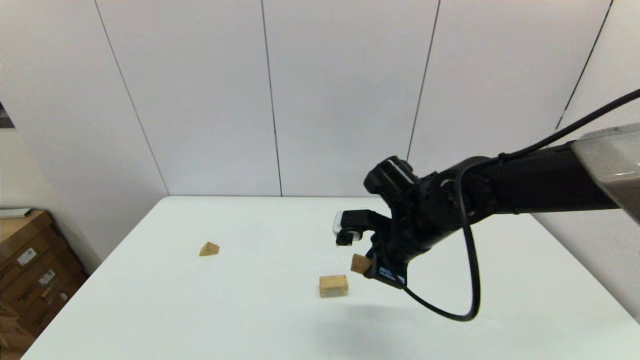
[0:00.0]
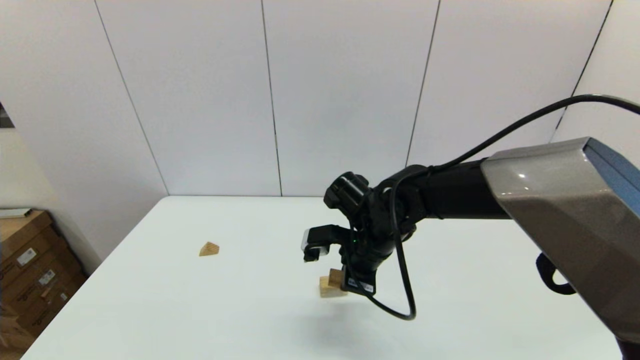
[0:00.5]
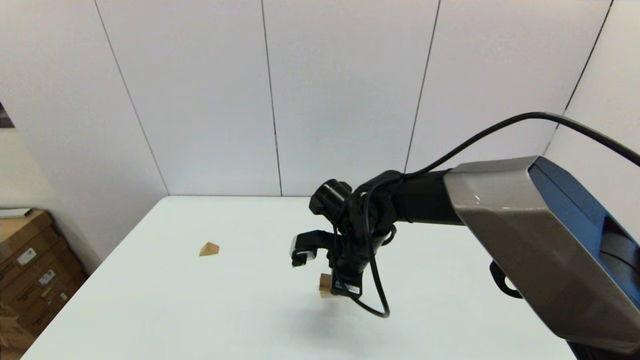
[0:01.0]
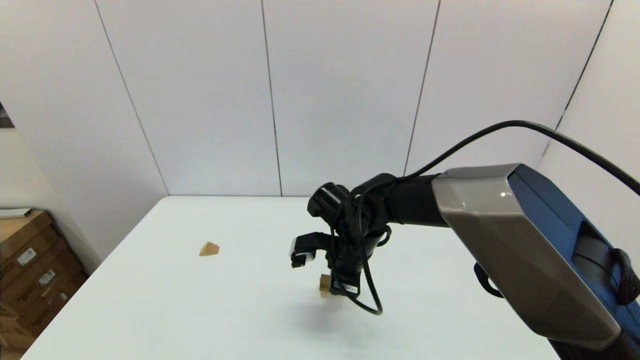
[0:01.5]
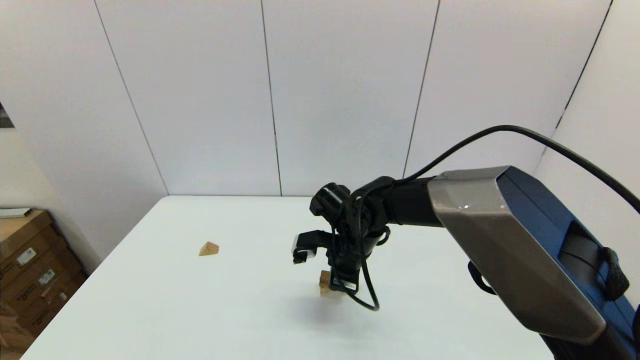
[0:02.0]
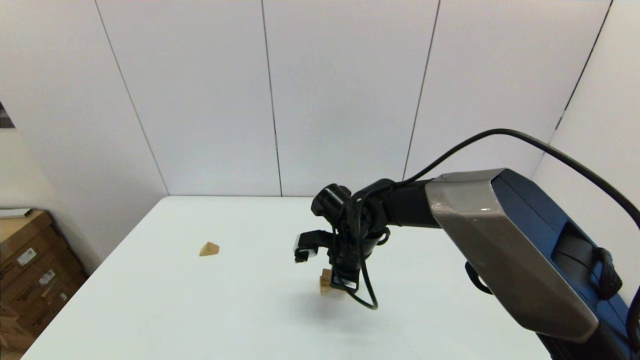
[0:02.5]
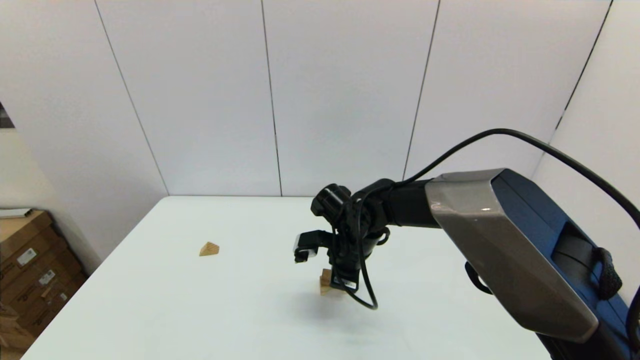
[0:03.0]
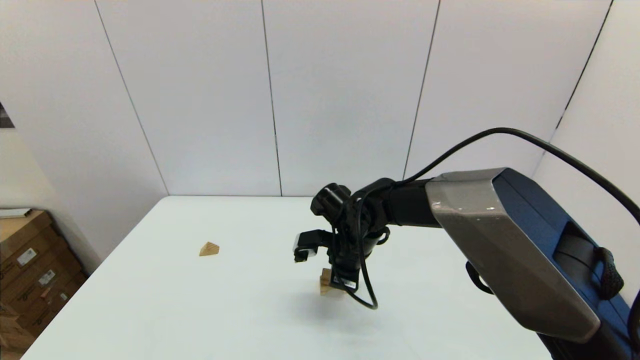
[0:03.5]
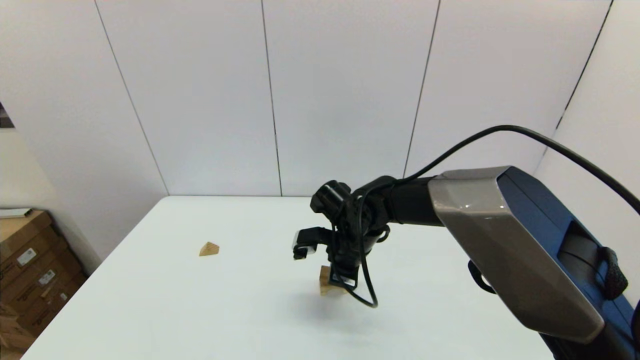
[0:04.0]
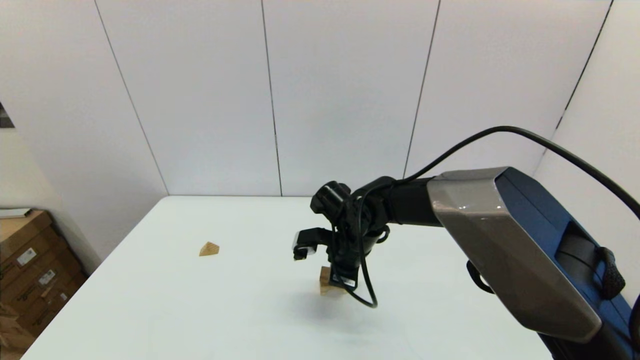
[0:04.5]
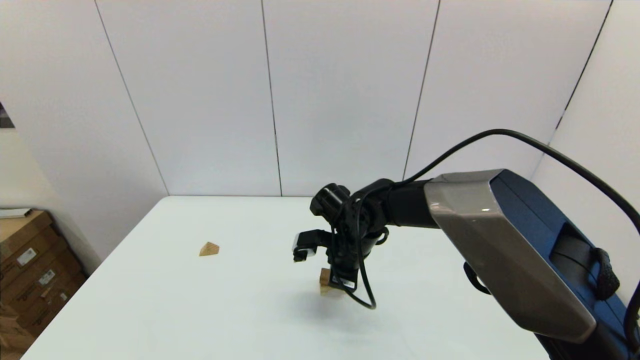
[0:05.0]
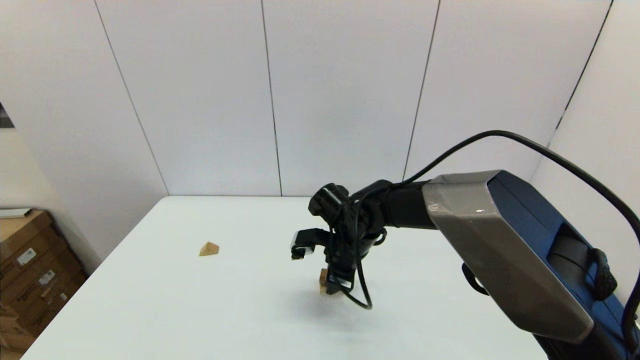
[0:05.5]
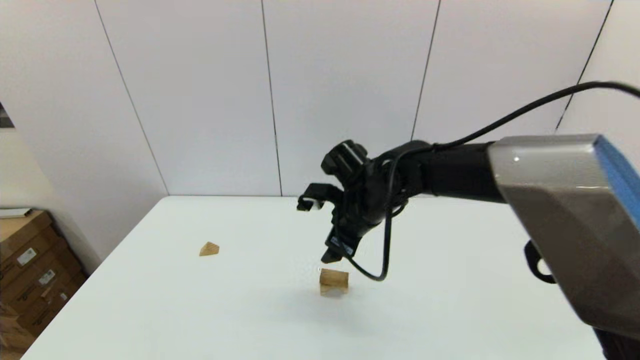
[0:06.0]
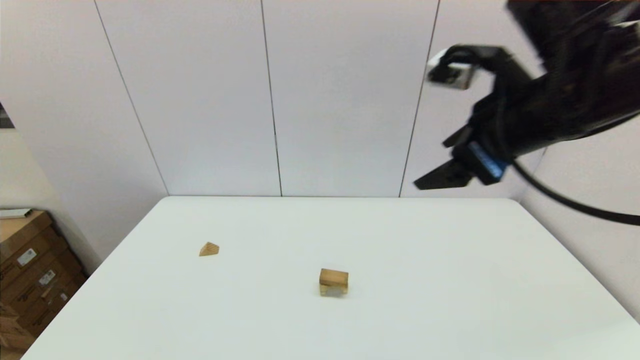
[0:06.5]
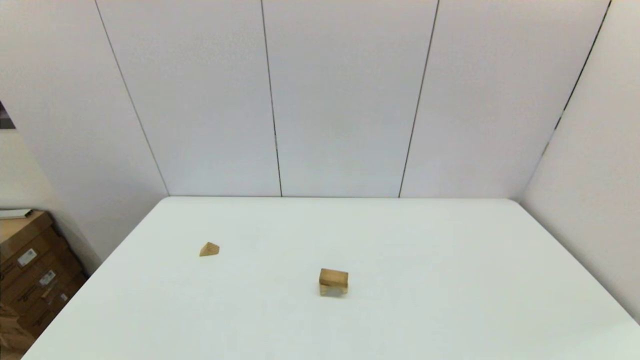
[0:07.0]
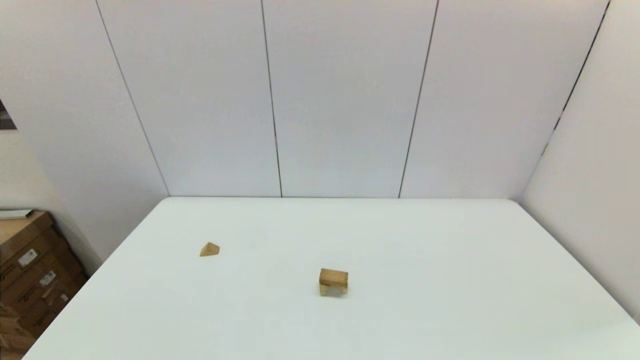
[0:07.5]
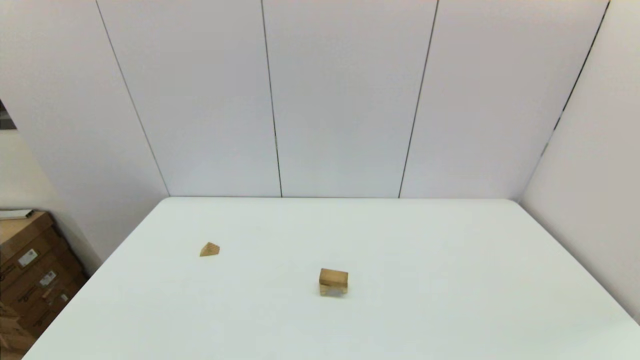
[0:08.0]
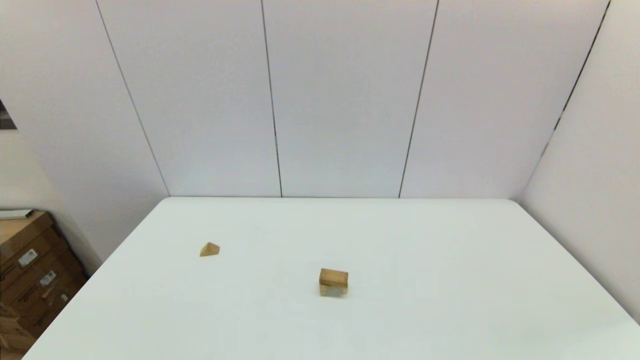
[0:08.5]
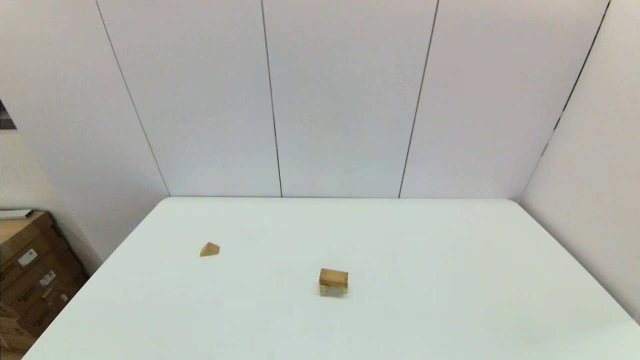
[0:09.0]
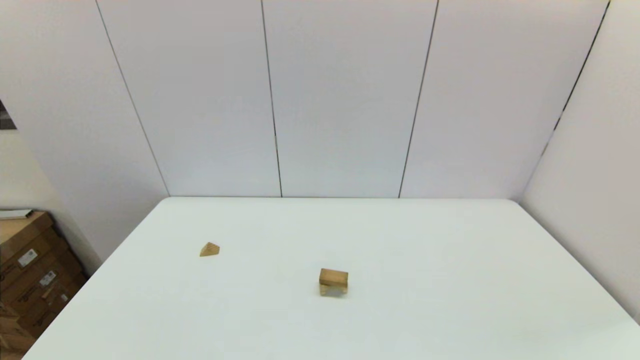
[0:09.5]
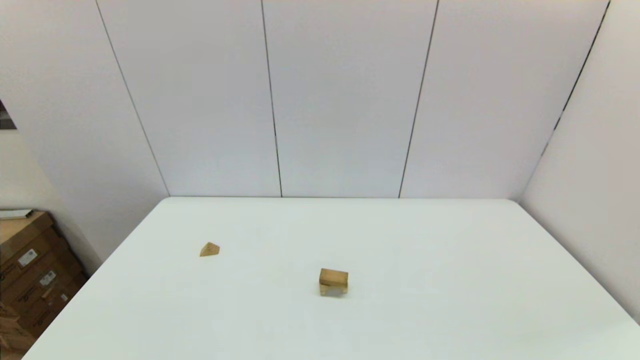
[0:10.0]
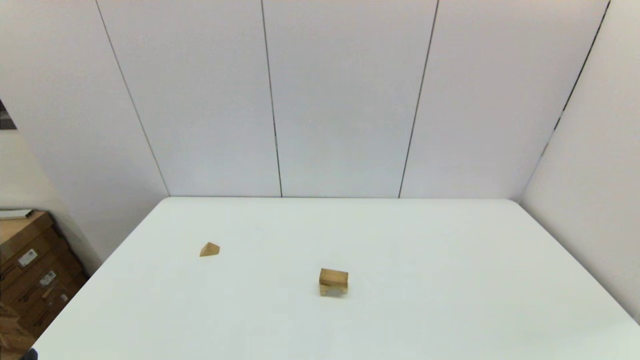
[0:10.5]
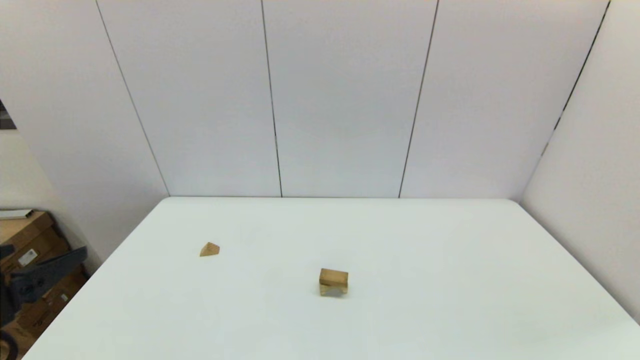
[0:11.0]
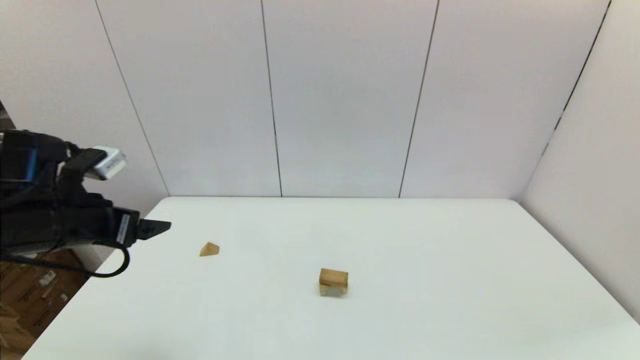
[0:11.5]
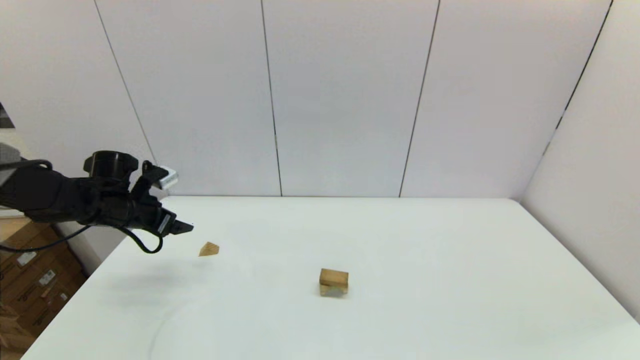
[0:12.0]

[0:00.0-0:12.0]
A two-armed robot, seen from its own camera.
Task of the whole recording: place the arched building blocks in the center of the table, set up the rectangular building blocks, and then set up the triangular building blocks.
Step, 0:00.0 to 0:05.5: Place the box-shaped block onto the arch-shaped block with the right gripper.
0:00.0 to 0:02.0: The right gripper goes approximately 10 cm to the left and downward.
0:02.0 to 0:04.0: Neither gripper changes place.
0:04.0 to 0:06.0: The right gripper travels upward by roughly 5 cm, and opens up.
0:06.0 to 0:08.0: The right gripper goes approximately 50 cm backward and to the right.
0:10.0 to 0:12.0: The left gripper goes roughly 40 cm forward.

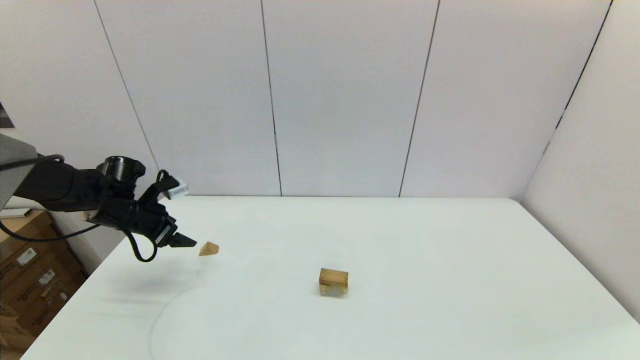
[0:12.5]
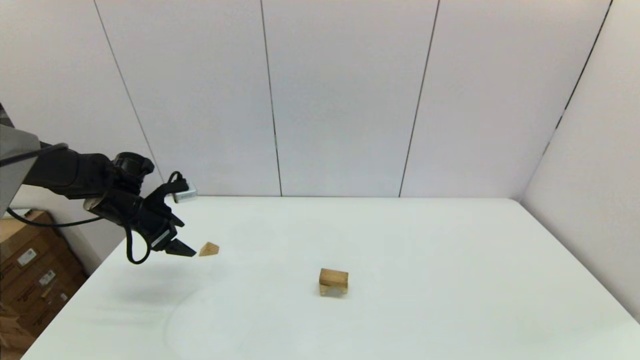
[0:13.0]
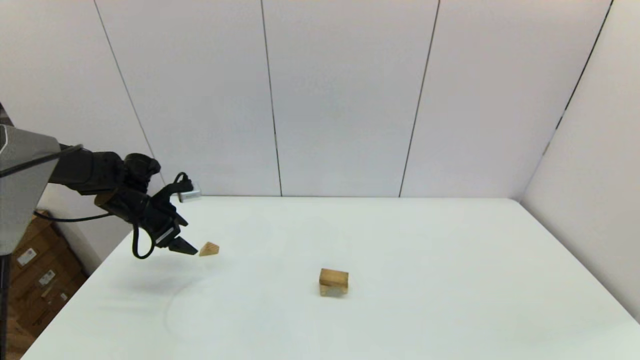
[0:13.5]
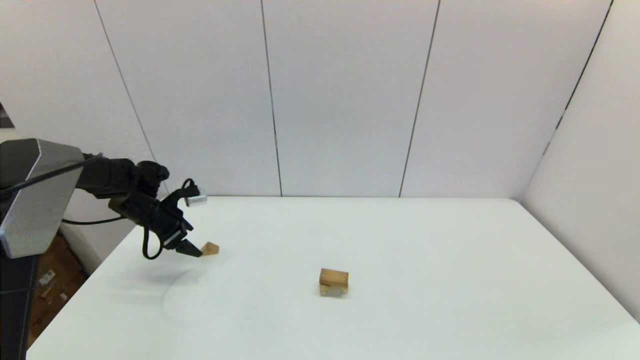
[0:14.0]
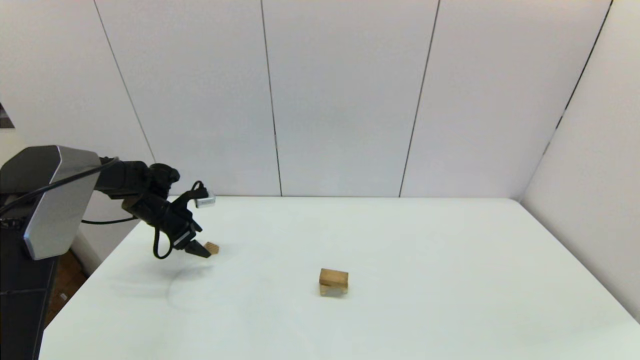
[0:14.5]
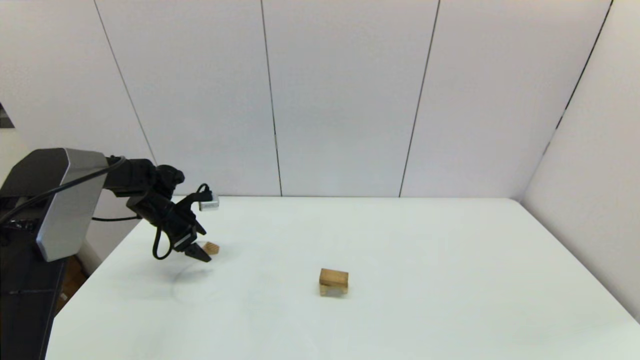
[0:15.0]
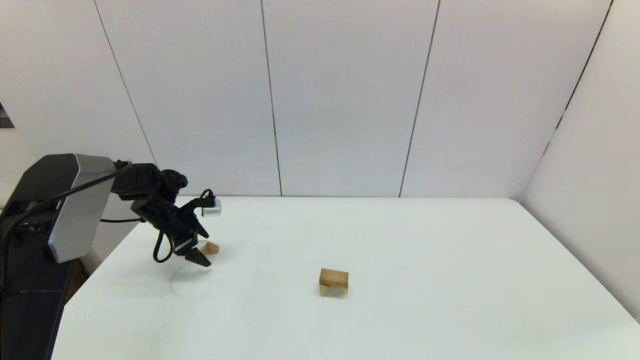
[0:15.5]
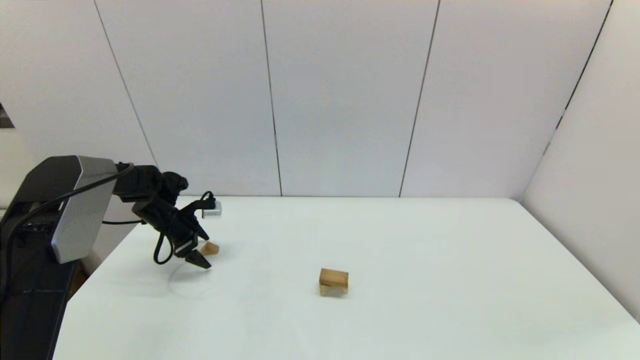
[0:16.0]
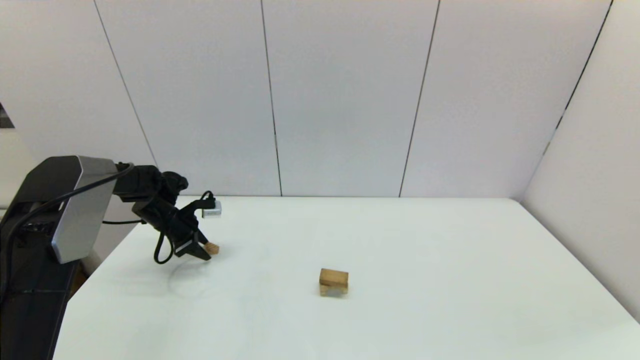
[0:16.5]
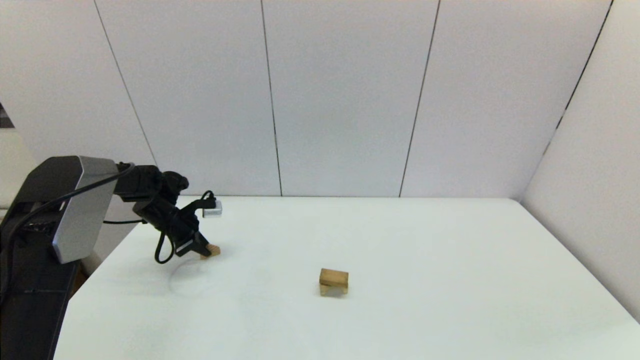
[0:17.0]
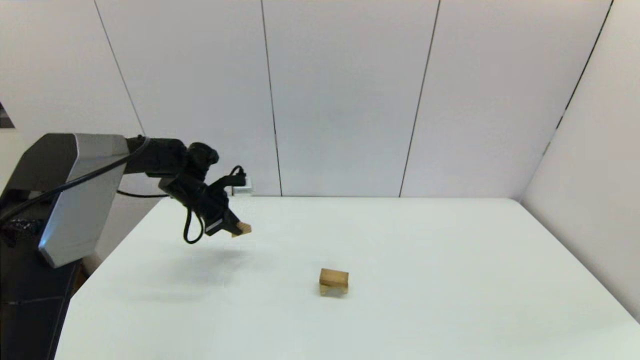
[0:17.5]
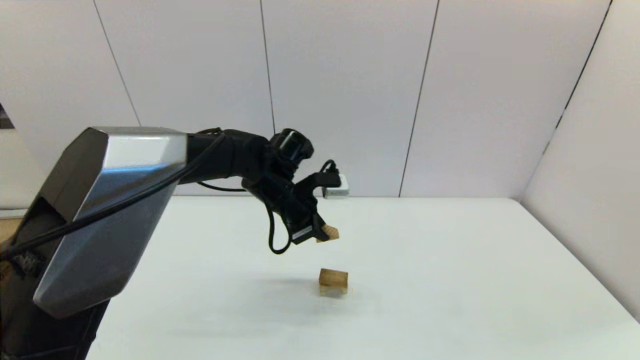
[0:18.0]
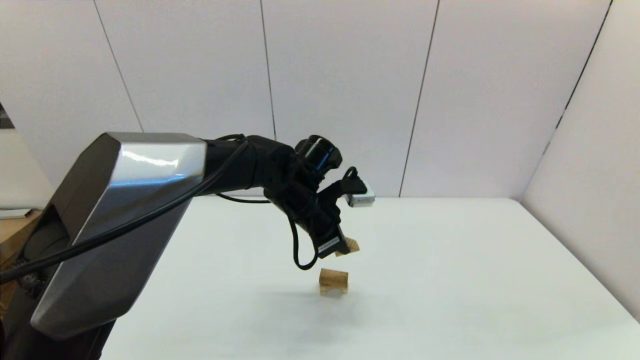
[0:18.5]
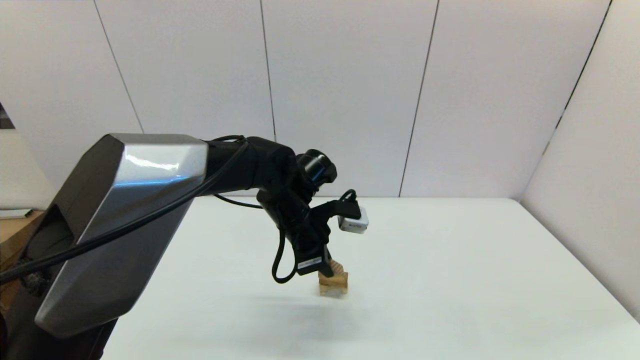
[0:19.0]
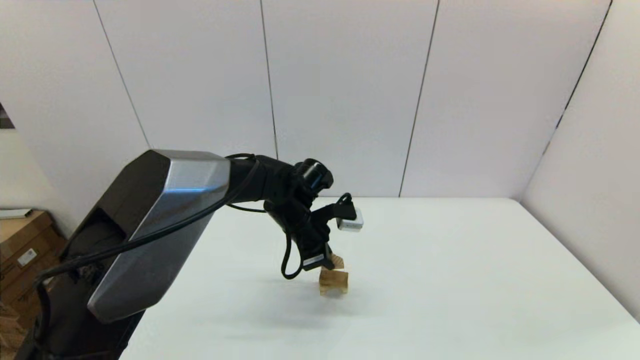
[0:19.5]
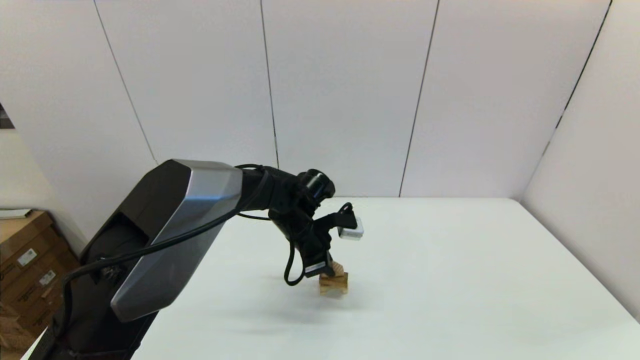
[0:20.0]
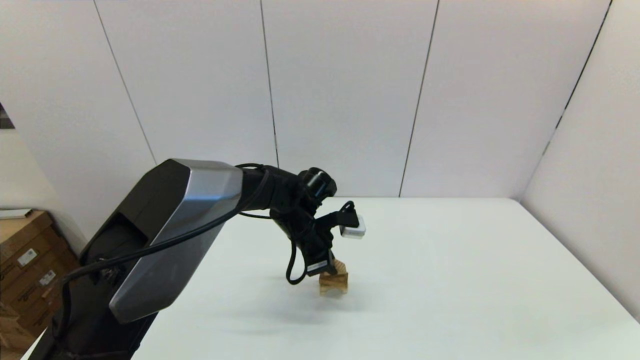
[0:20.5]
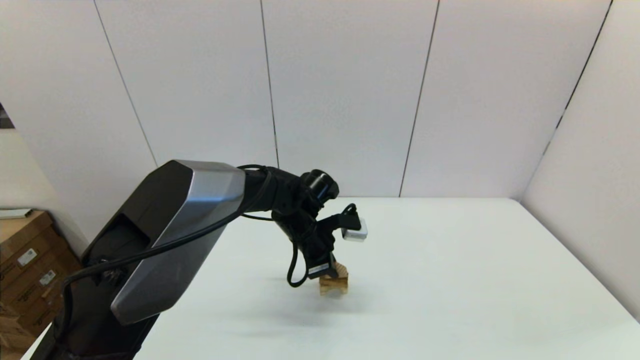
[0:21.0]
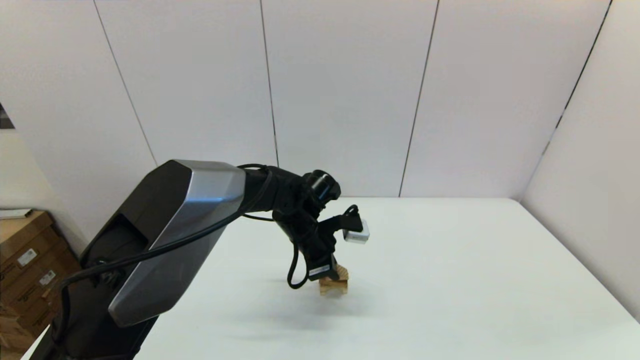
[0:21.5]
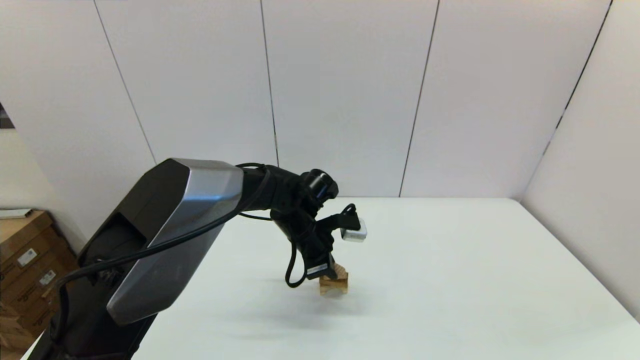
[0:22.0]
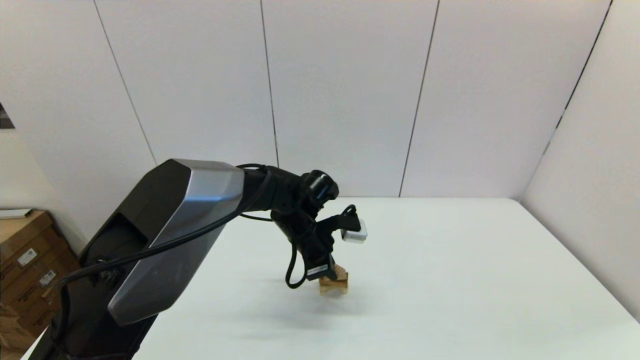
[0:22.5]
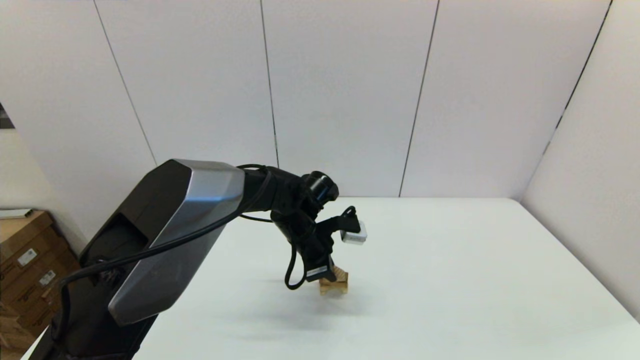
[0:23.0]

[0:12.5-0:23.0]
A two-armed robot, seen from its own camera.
Task of the whole recording: place the arched building blocks in the center of the table, set up the rectangular building blocks, and then set up the triangular building blocks.
Step, 0:12.5 to 0:16.5: Grasp the triangle-shaped block with the left gripper.
0:12.5 to 0:14.5: The left gripper shifts some 5 cm forward.
0:14.5 to 0:16.5: The left gripper closes.
0:16.5 to 0:19.0: The left gripper goes some 30 cm to the right, and closes.
0:19.0 to 0:21.0: The left gripper goes roughly 5 cm downward.
0:21.0 to 0:23.0: The two grippers keep their place.
